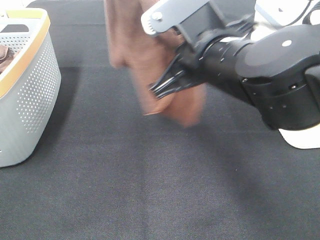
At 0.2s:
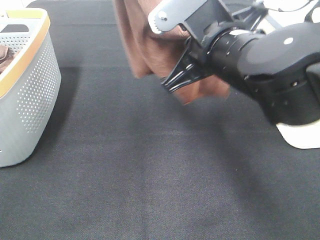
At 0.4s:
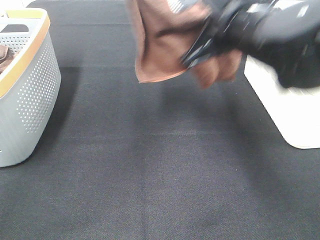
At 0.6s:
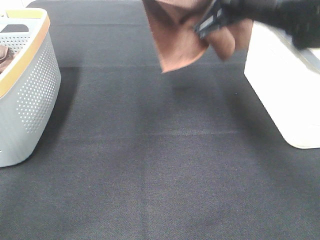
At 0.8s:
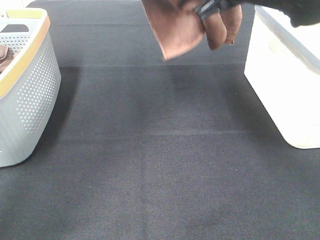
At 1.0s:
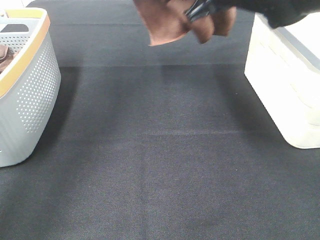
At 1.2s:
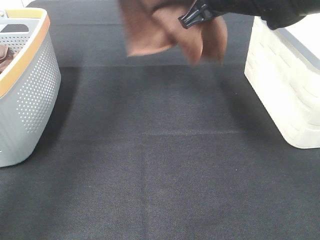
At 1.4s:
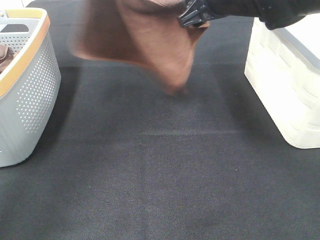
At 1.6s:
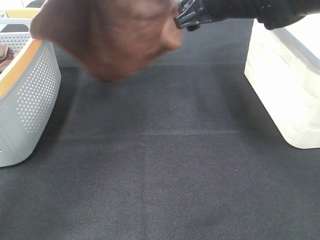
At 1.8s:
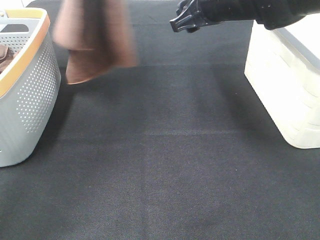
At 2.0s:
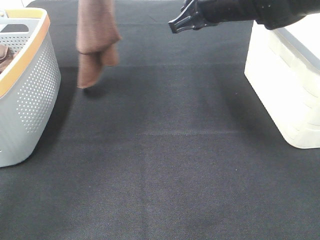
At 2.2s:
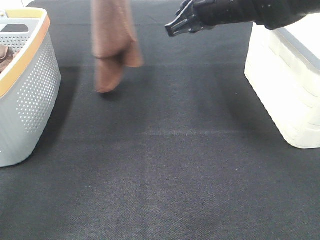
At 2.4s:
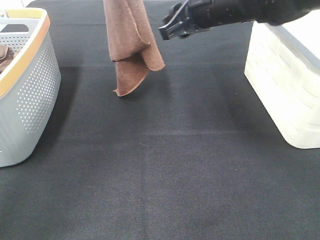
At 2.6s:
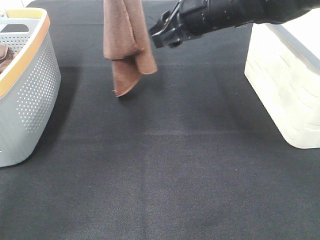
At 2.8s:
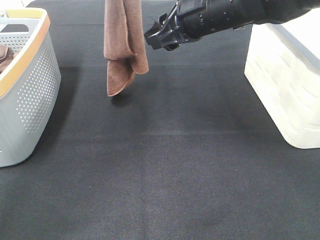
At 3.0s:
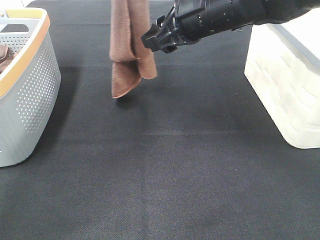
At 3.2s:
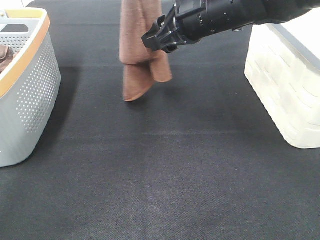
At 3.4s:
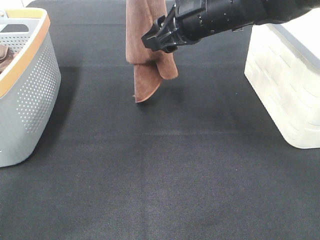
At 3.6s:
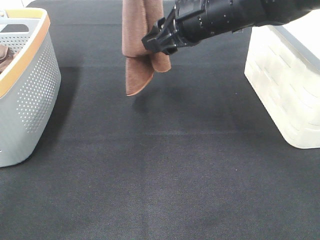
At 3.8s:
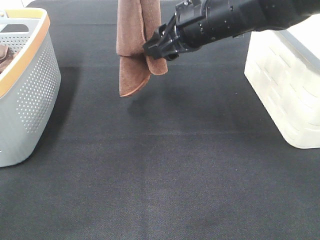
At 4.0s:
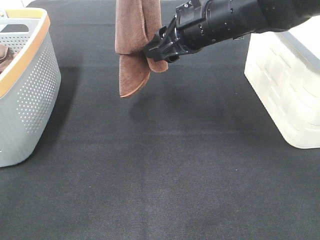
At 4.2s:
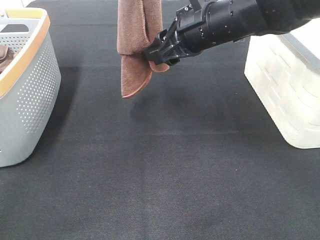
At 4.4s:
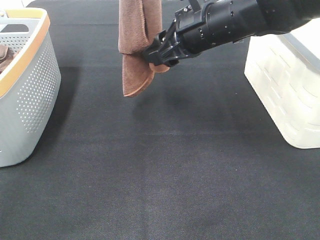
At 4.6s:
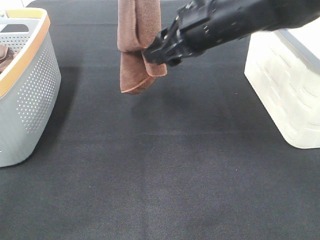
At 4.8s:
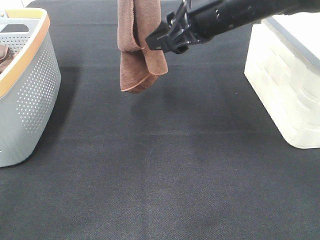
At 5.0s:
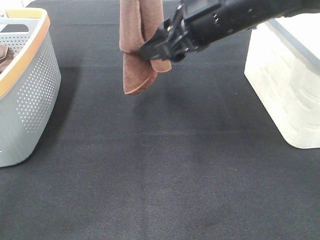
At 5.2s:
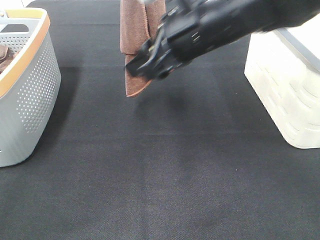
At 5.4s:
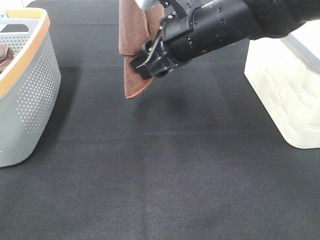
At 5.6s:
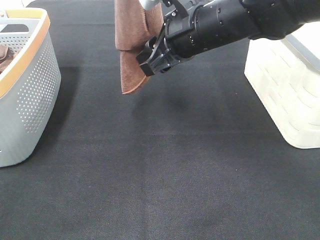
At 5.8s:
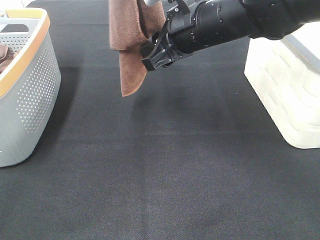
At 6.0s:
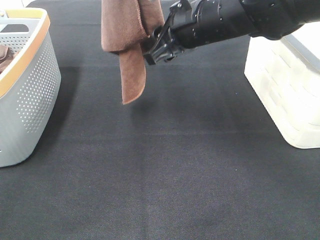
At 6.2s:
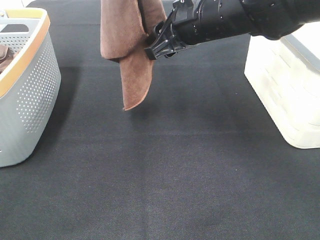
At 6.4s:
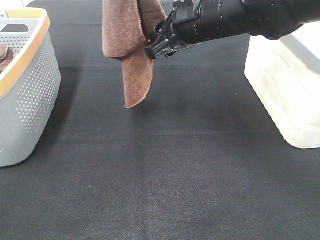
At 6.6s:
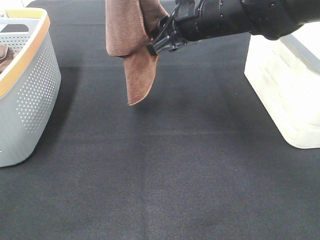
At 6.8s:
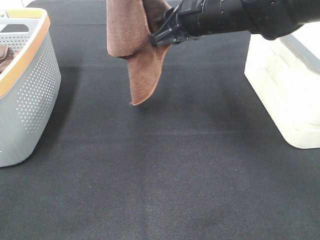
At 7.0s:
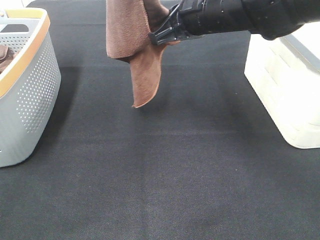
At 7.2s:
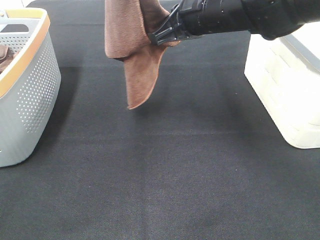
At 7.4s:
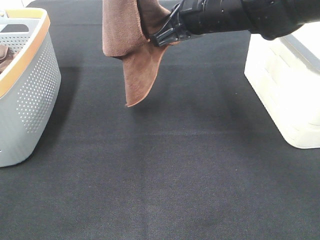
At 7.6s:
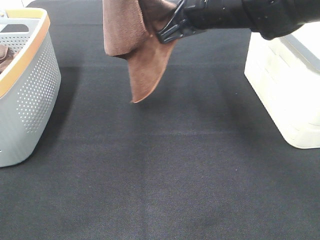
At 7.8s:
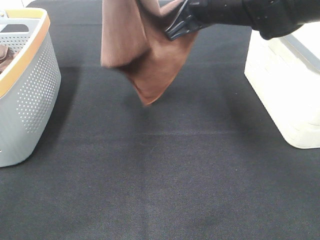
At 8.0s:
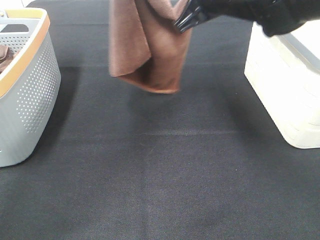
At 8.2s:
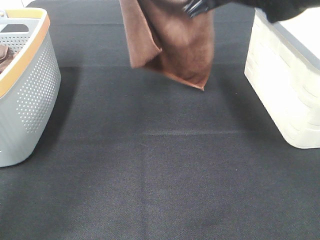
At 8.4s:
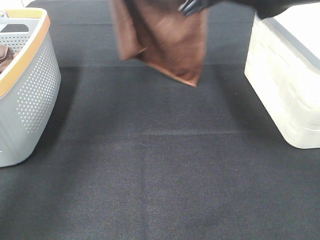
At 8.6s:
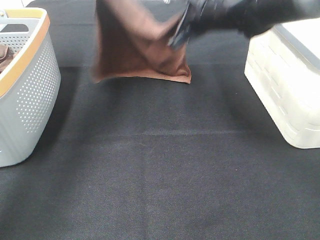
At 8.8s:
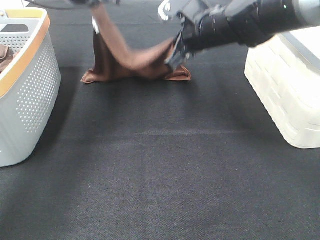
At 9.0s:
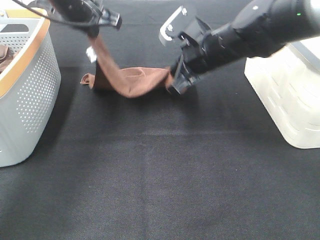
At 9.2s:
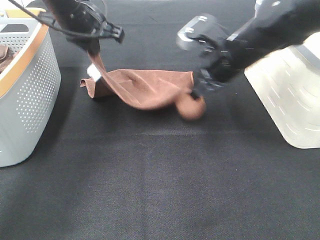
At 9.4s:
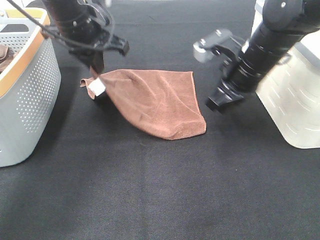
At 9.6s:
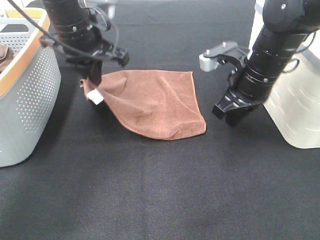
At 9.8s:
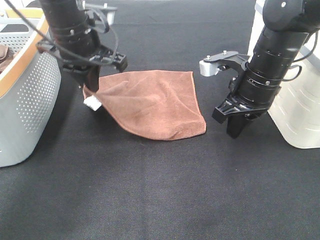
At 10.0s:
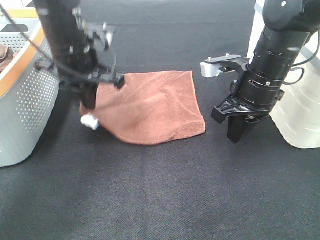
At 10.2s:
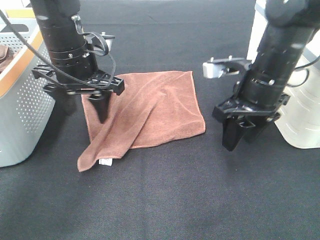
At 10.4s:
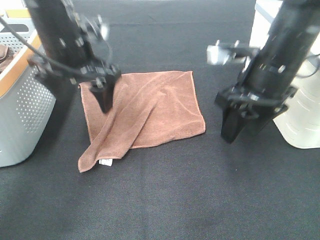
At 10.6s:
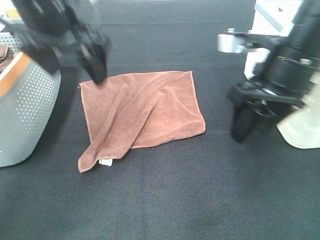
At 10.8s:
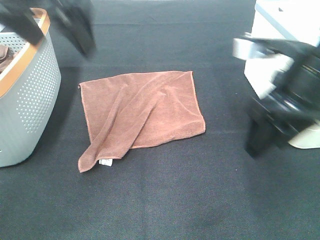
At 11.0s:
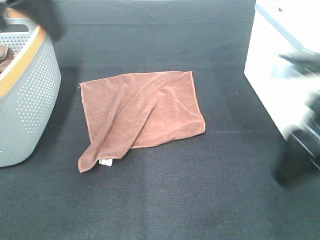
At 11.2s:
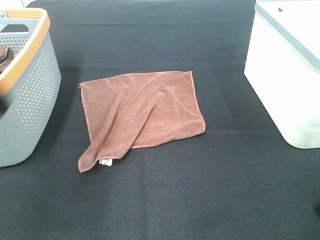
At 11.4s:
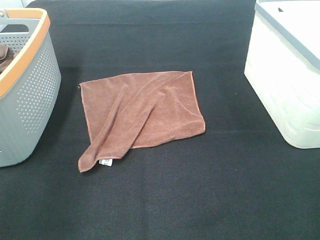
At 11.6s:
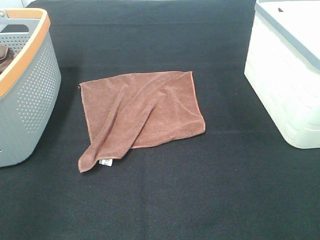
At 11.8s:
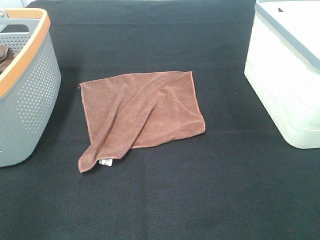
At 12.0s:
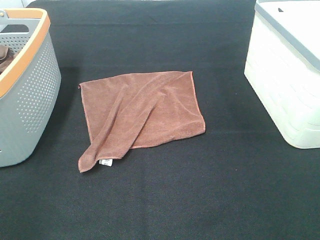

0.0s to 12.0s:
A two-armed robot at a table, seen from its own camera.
Task of the whole recording: Remove the towel and place it.
Step, 2.0s to 2.6s: Right hand: spread the brown towel flat on the table.
Step, 2.0s to 3.2s: Left hand: spread the brown towel flat on the table.
0.0s to 1.6s: The right gripper travels forward by approximately 15 cm, and opens; the left gripper is displaced forward and downward by approximately 10 cm.
3.0s to 4.4s: There are only small adjustments of the grippers.
4.4s to 6.0s: The grippers stay close to where they were, moving slightly.
6.0s to 7.6s: The right gripper closes up.
7.6s to 9.0s: The right gripper shifts some 10 cm downward, while the left gripper goes about 25 cm downward and forward.
9.0s to 10.4s: Both grippers travel together backward, roughly 10 cm. The right gripper opens, while the left gripper opens up.
10.4s to 12.0s: The right gripper is displaced backward and to the right by some 30 cm. The left gripper shifts some 35 cm backward and to the left.

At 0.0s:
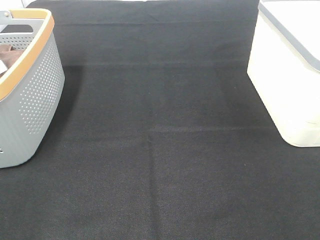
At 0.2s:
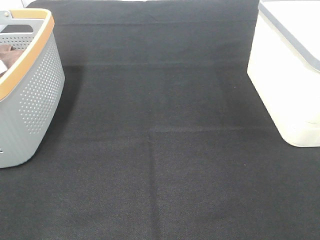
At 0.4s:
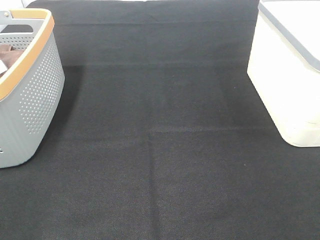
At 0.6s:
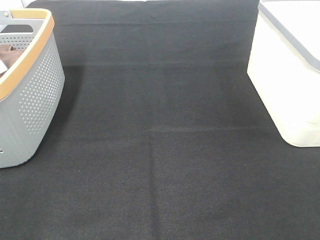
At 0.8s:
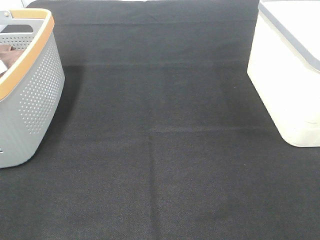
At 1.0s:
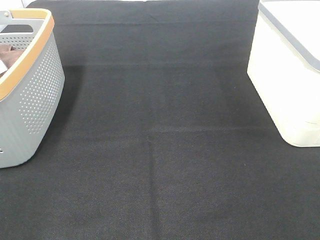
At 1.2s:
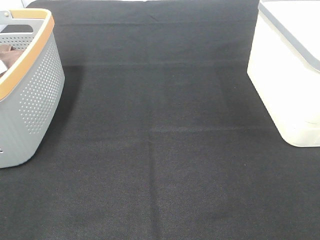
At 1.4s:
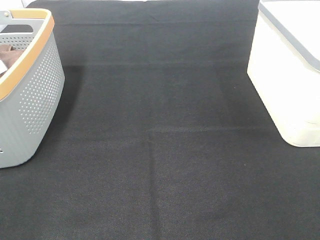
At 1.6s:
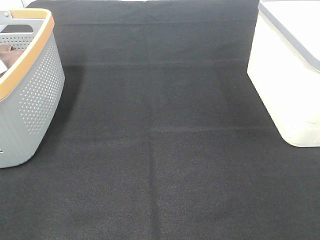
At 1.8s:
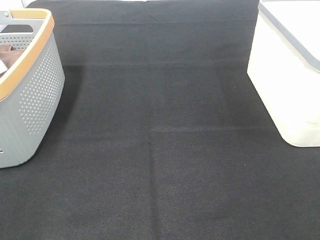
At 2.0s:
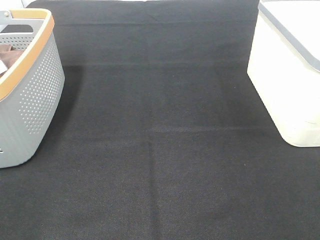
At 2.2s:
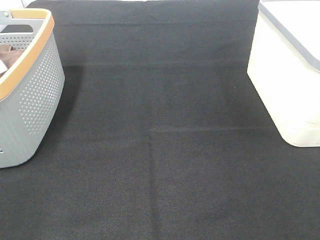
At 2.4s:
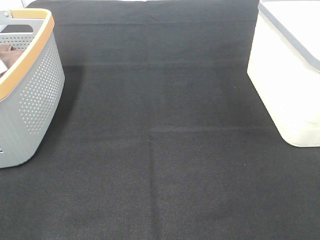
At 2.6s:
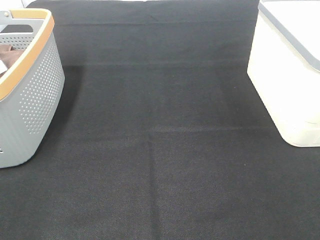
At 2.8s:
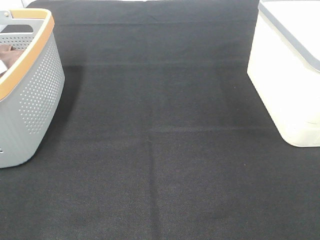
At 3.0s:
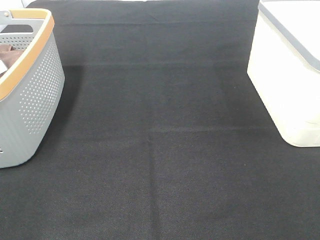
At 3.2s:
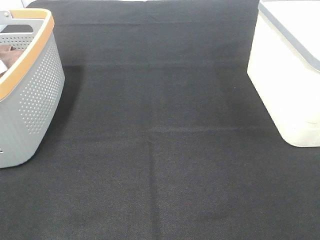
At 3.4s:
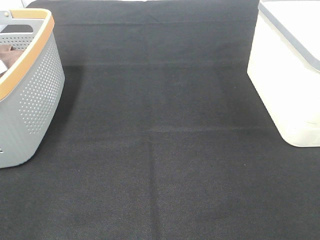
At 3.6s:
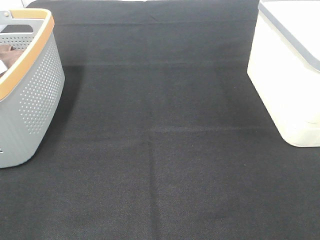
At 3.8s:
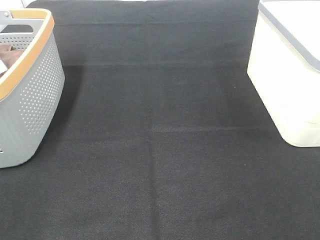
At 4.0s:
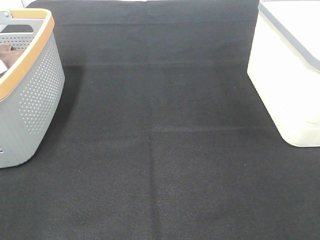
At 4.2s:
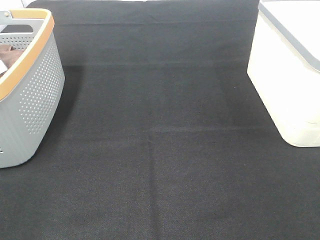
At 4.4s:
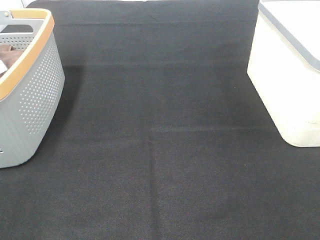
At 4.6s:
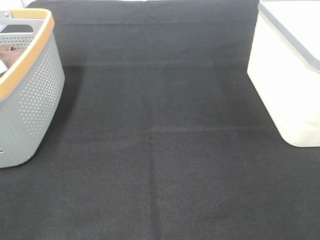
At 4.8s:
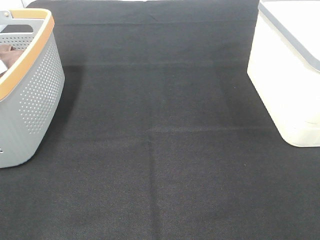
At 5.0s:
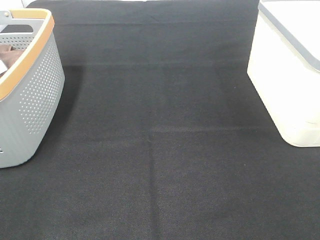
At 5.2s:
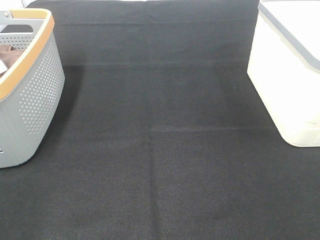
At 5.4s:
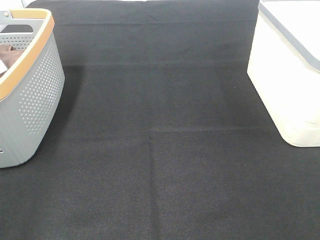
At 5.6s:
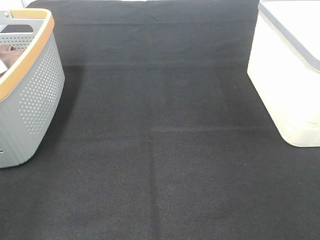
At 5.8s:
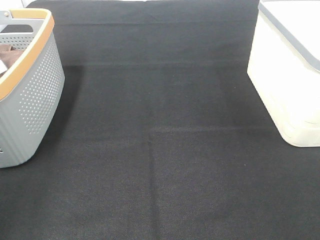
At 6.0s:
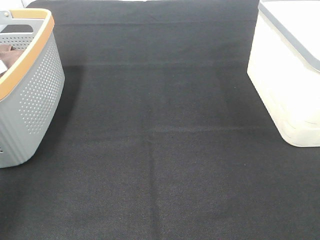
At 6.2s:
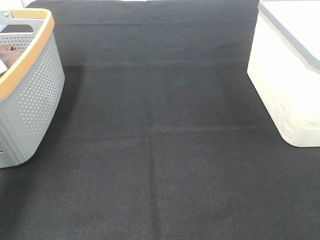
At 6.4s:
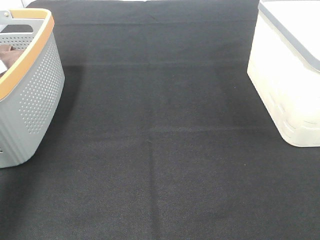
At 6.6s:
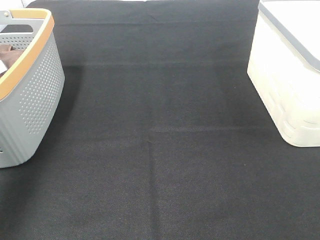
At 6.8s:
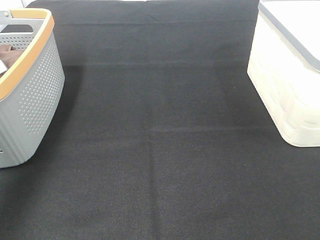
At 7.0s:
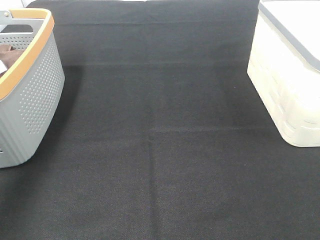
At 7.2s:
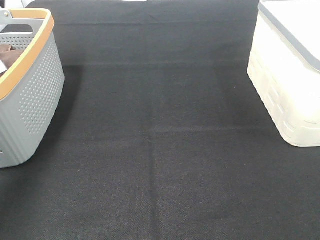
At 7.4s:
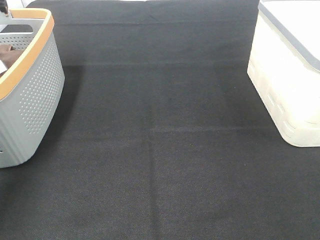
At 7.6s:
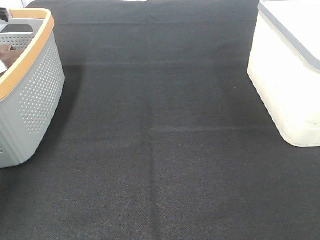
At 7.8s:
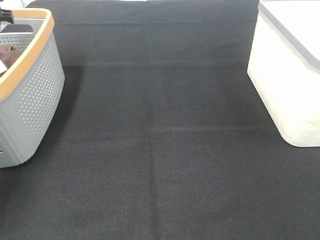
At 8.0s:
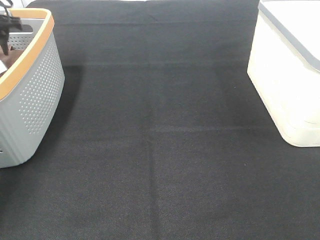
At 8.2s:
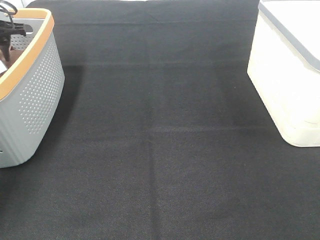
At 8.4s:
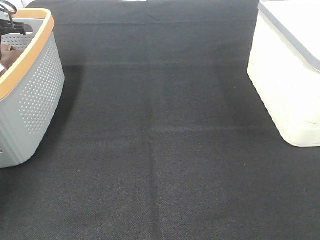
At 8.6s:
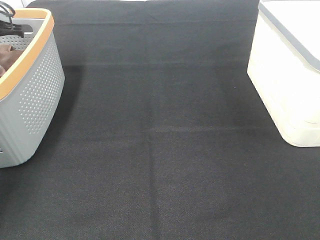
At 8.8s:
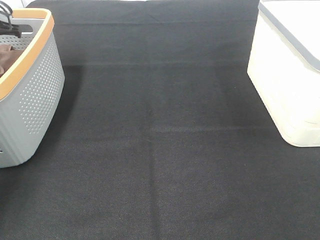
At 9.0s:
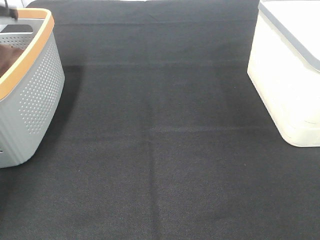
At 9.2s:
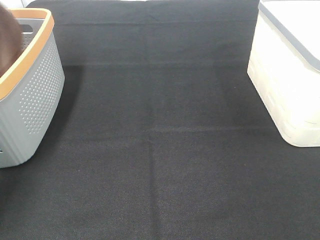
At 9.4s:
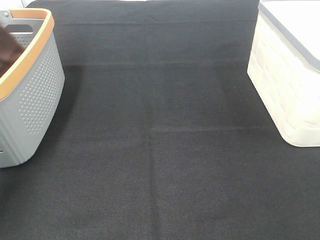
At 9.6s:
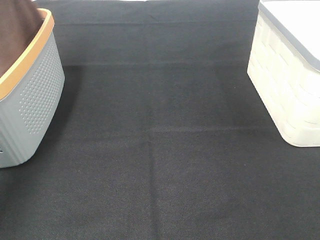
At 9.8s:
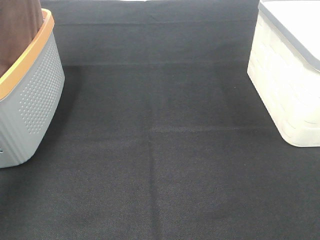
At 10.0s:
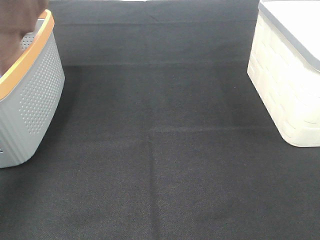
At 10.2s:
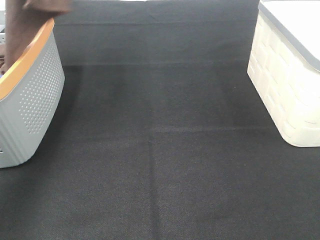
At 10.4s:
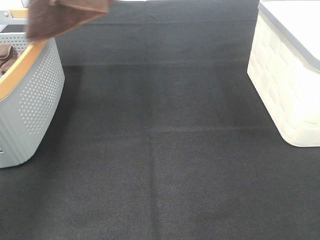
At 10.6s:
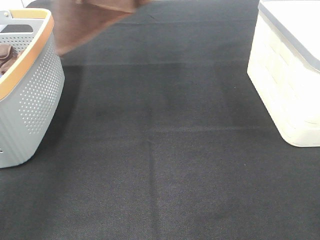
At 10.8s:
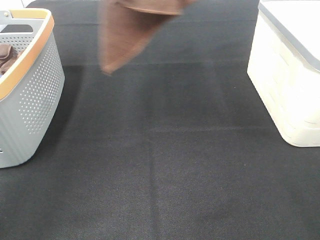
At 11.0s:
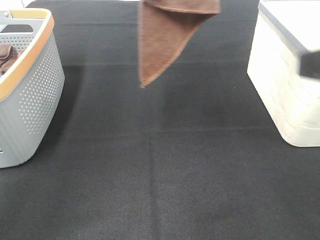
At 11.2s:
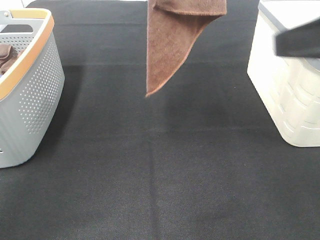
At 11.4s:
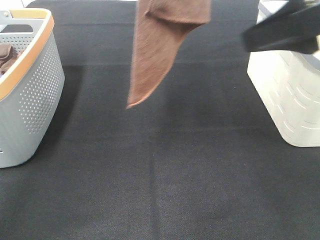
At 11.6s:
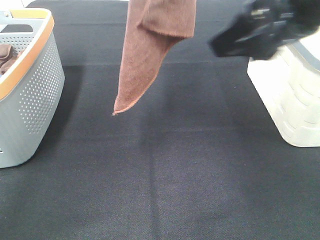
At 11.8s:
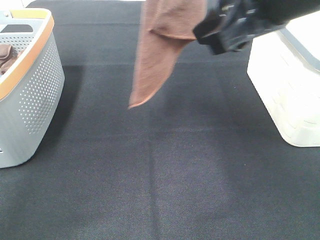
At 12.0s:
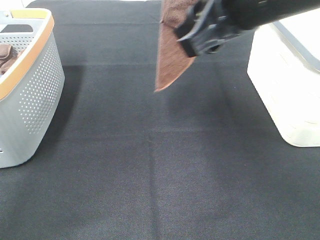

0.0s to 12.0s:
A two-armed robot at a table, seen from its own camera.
Task of the whole recording: Remove the towel and place it.
0.0s to 4.4s: The two grippers keep their place.
4.4s to 6.0s: The left gripper goes about 20 cm forward and upward.
6.0s to 7.6s: The left gripper is displaced forward by roughly 30 cm.
7.6s to 9.0s: The left gripper closes up.
9.0s to 10.4s: The left gripper travels upward, to the right and backward by about 35 cm.
10.4s to 12.0s: The left gripper heads to the right, covering about 10 cm, while the right gripper travels forward and to the left by about 30 cm.
